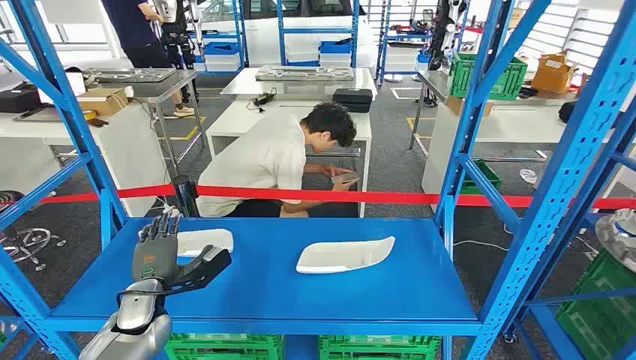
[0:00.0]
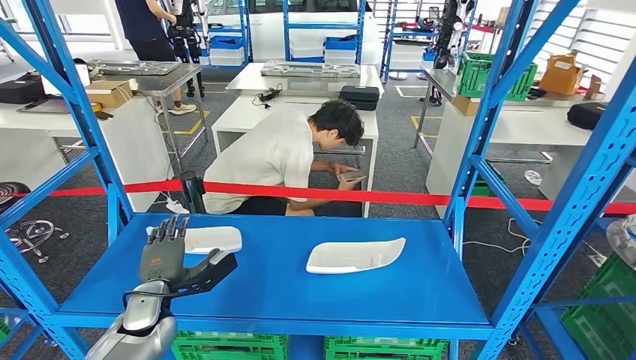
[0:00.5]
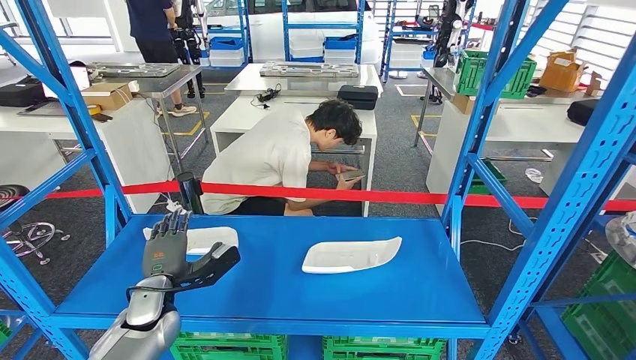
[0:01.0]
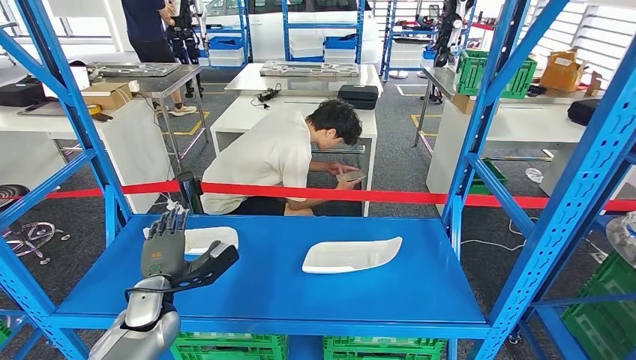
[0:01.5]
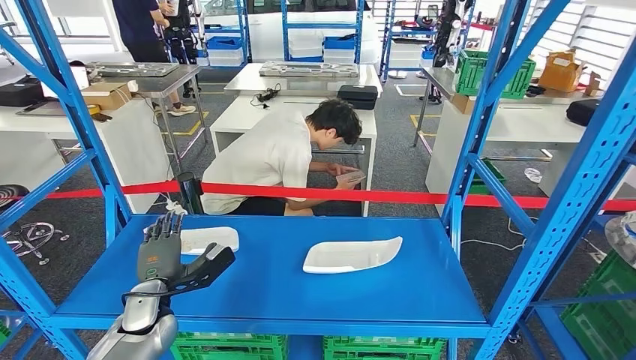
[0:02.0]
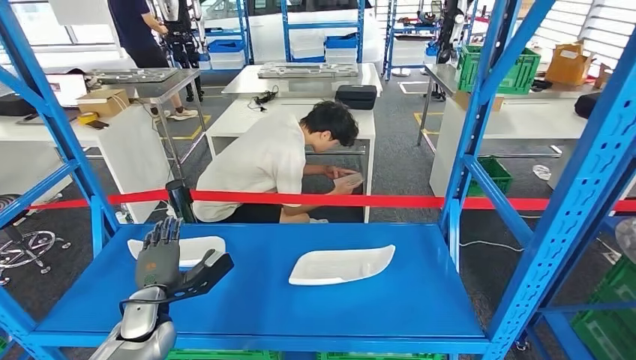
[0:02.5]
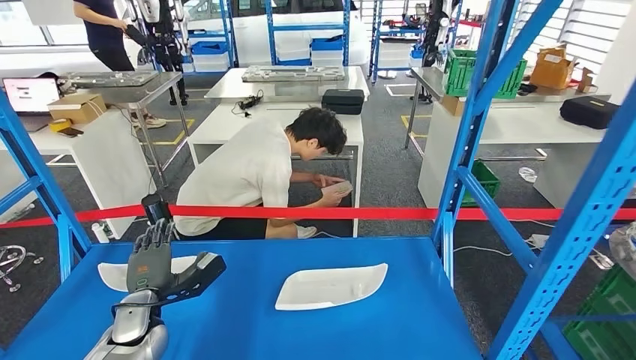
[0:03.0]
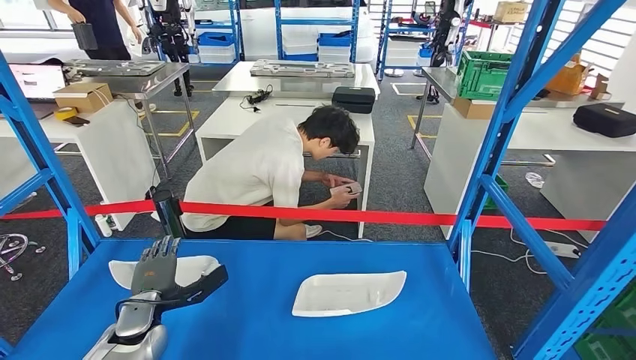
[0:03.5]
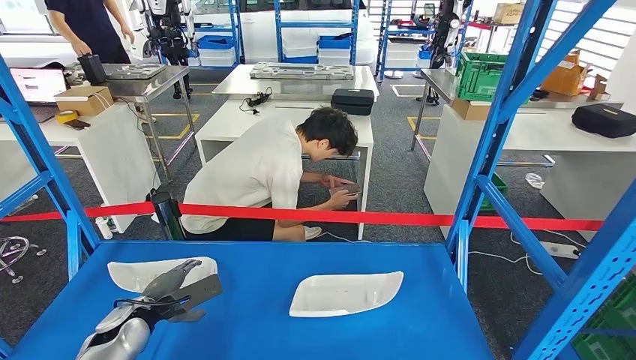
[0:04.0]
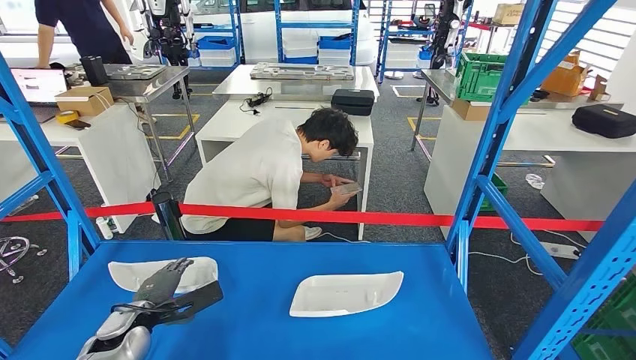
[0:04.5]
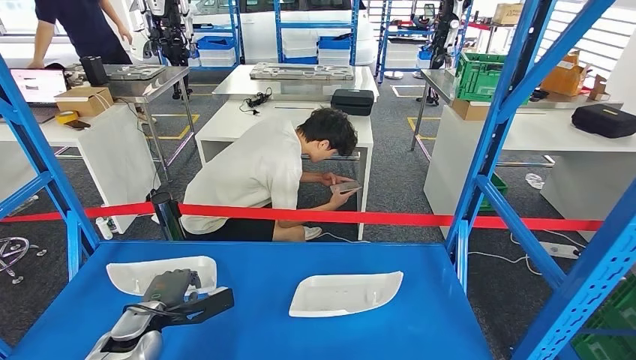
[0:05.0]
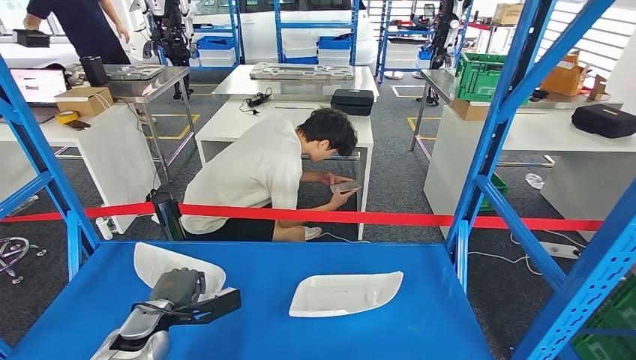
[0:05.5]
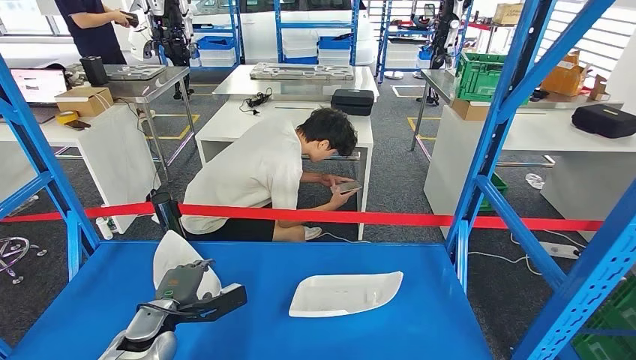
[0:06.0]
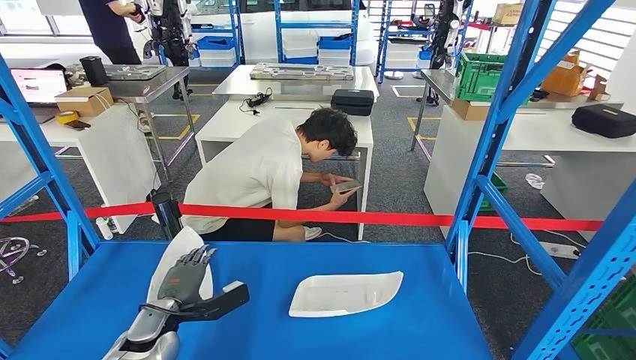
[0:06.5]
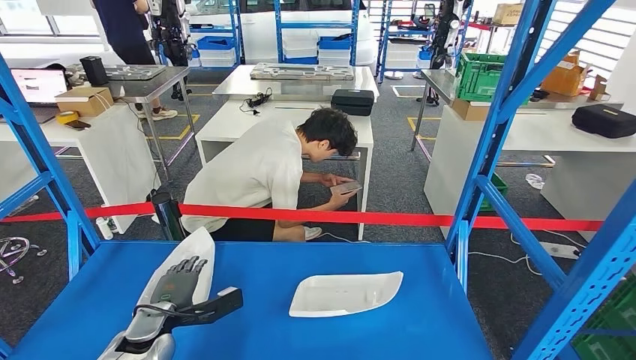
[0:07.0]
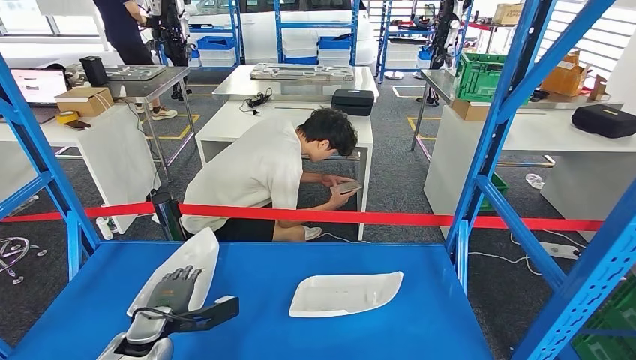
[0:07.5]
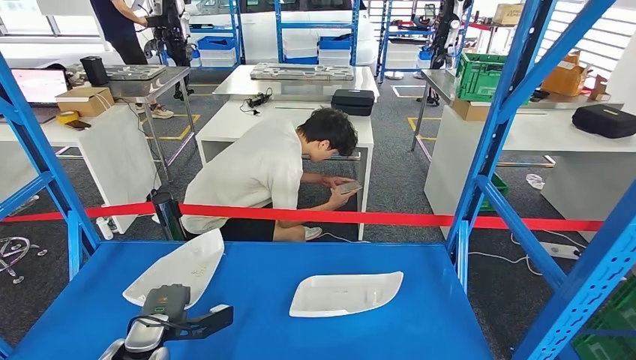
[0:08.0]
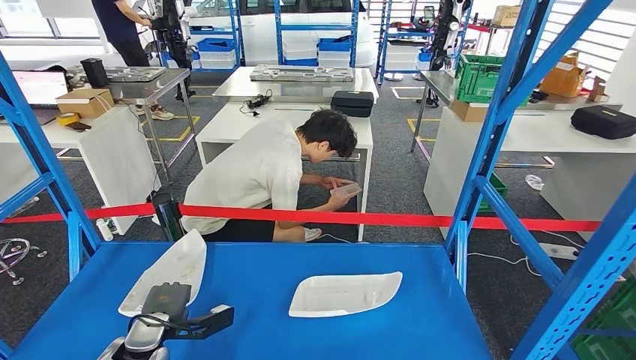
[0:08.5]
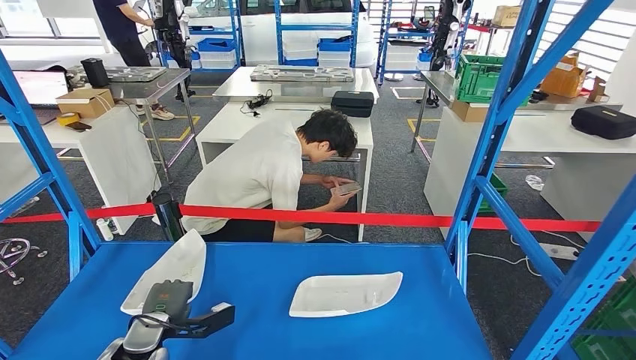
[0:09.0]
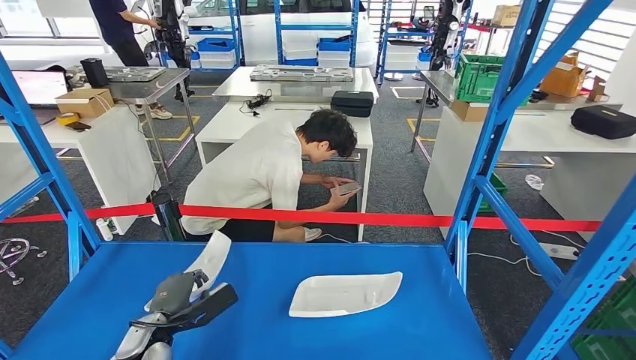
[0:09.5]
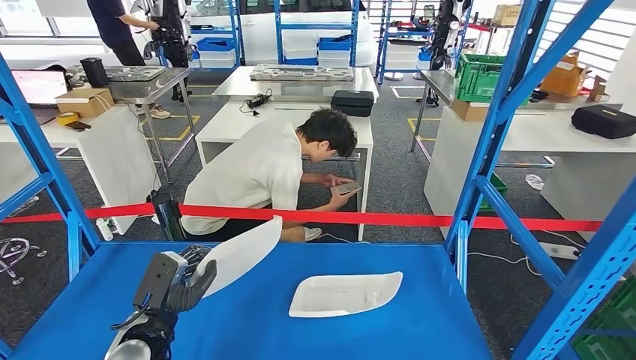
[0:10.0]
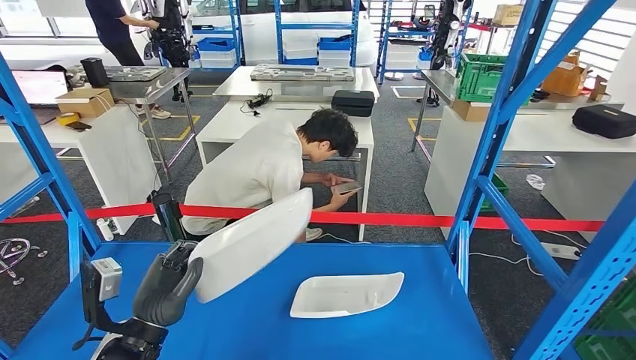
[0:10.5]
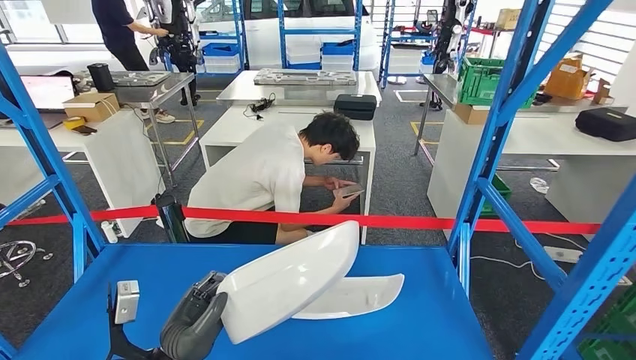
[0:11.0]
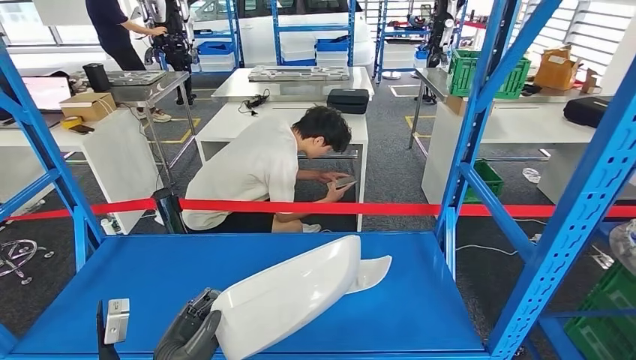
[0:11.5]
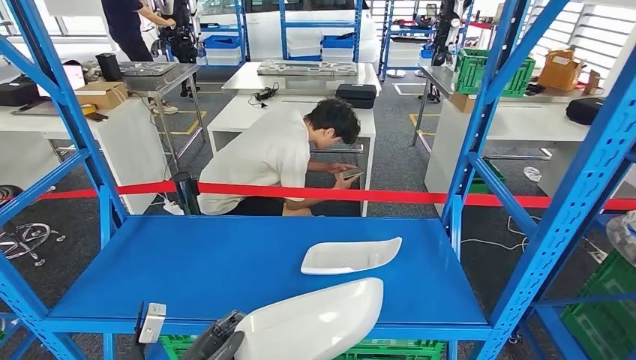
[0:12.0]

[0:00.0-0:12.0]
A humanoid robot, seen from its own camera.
Step, 0:00.0 to 0:09.5: Take small components from the rack.
0:08.0 to 0:10.0: The left hand goes roughly 5 cm to the right.

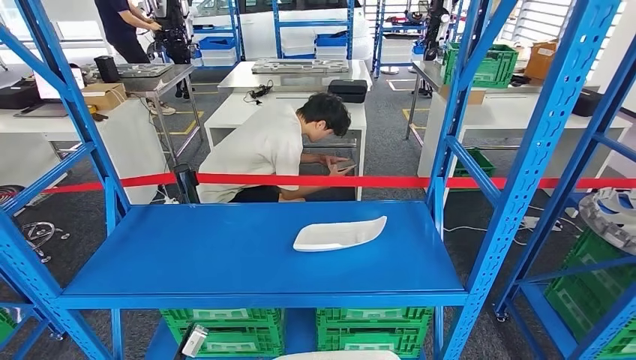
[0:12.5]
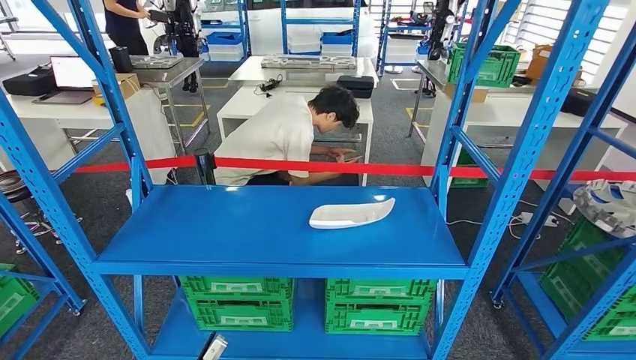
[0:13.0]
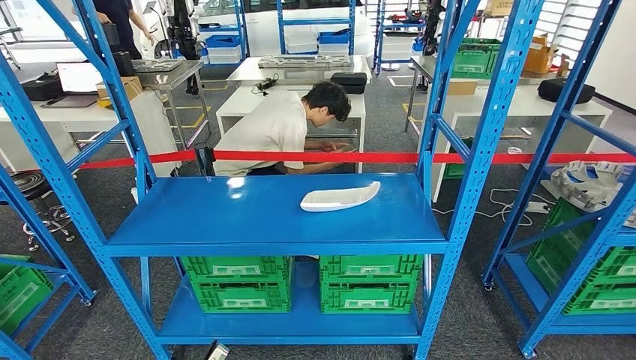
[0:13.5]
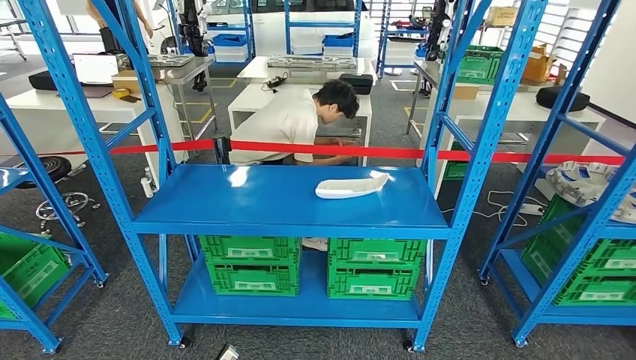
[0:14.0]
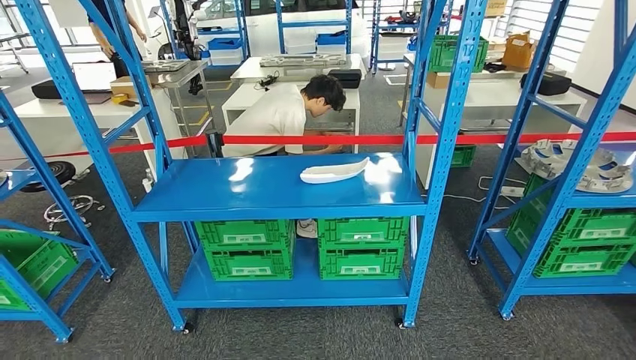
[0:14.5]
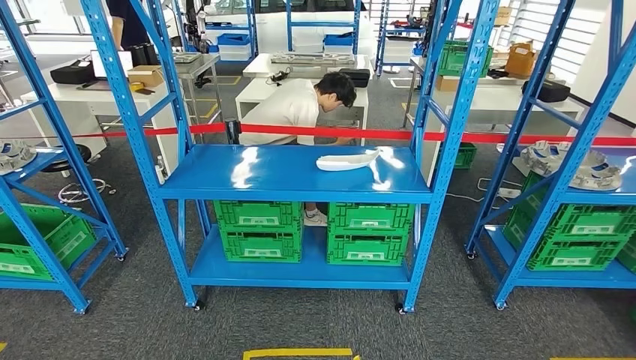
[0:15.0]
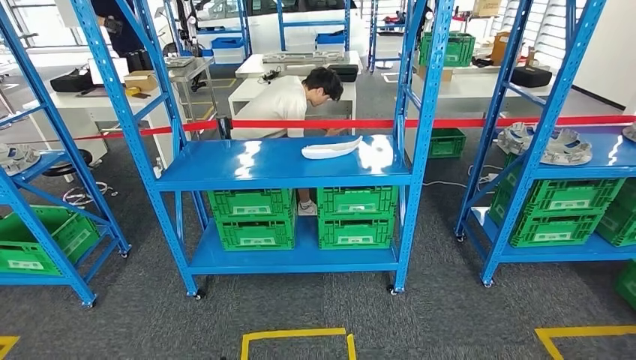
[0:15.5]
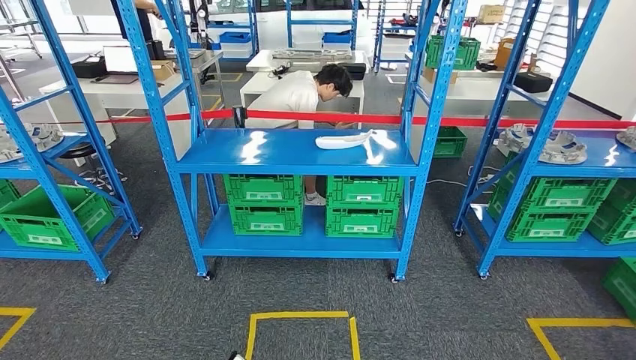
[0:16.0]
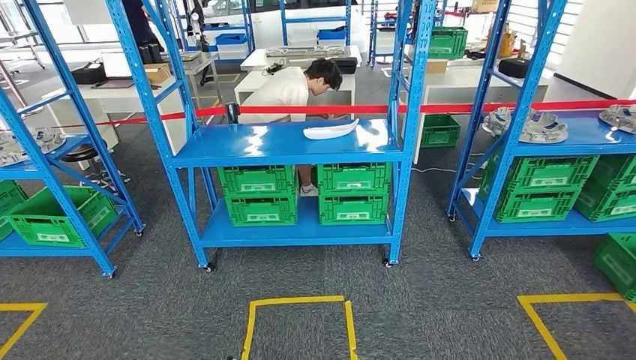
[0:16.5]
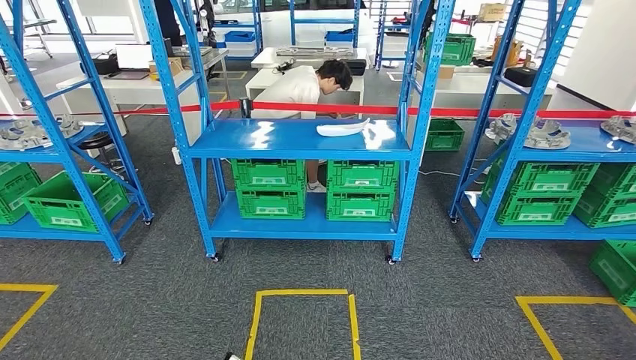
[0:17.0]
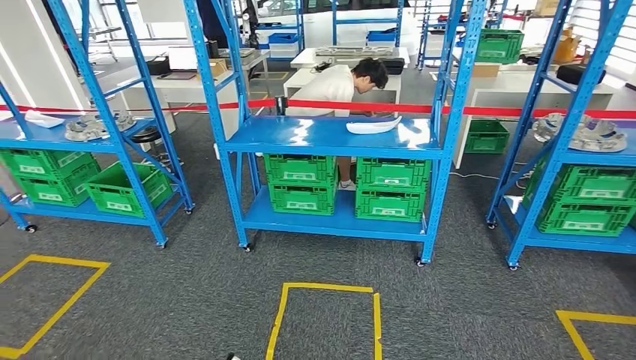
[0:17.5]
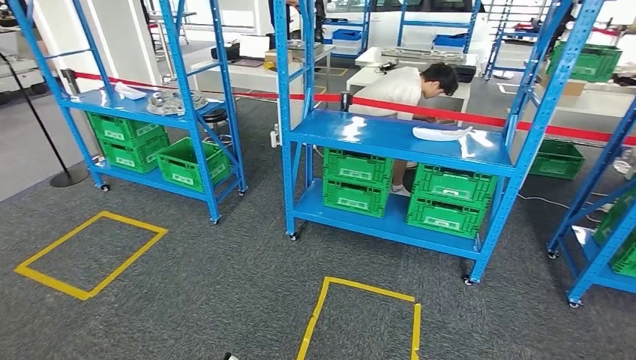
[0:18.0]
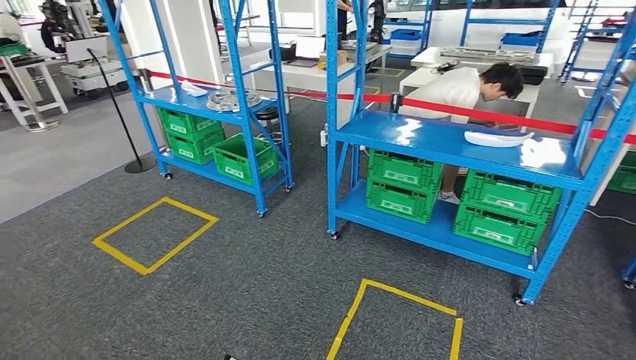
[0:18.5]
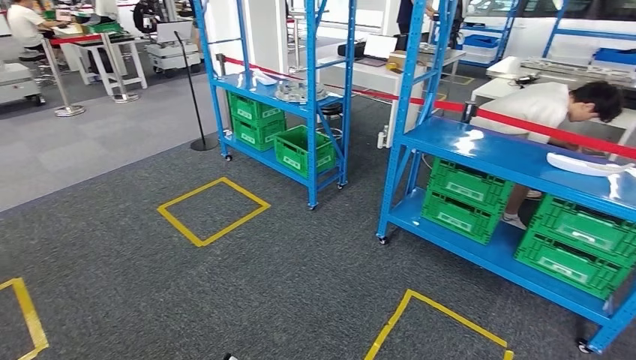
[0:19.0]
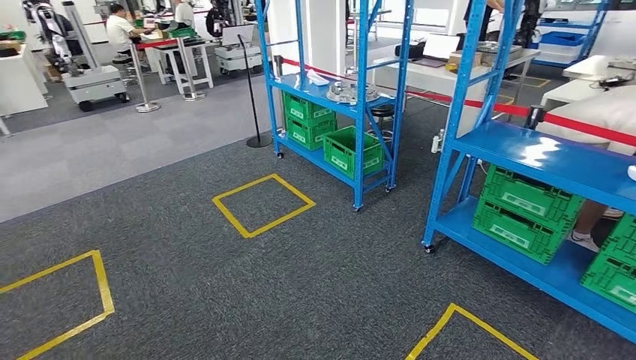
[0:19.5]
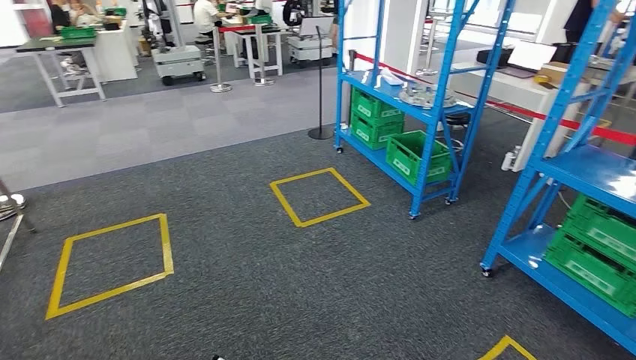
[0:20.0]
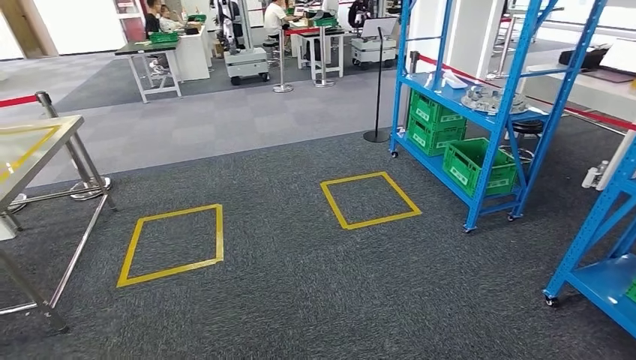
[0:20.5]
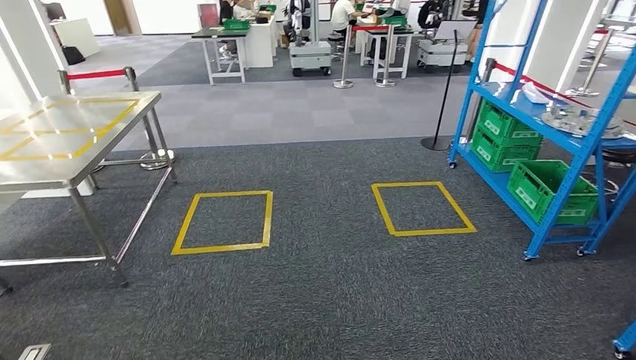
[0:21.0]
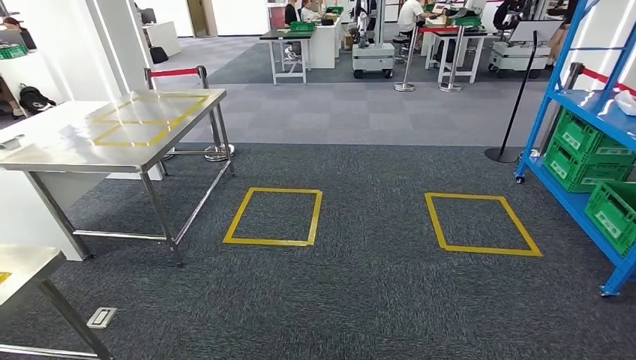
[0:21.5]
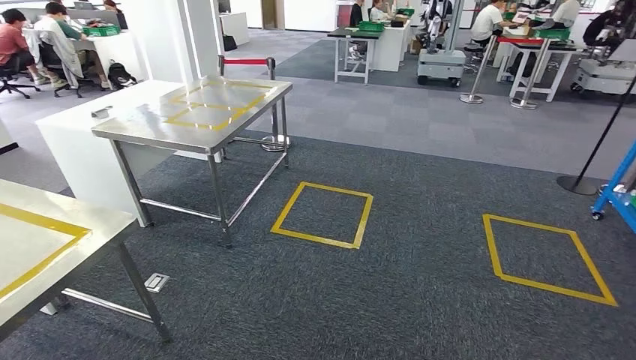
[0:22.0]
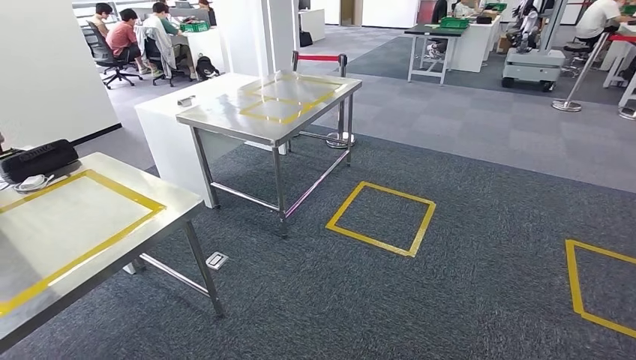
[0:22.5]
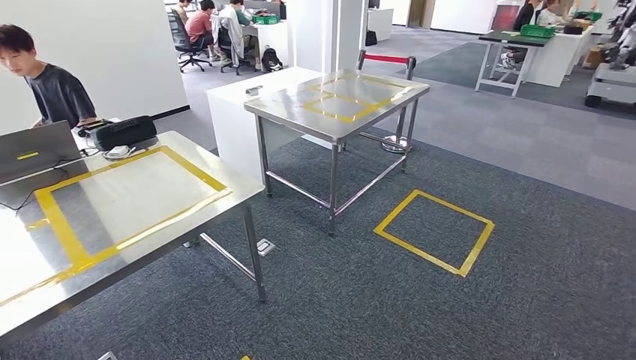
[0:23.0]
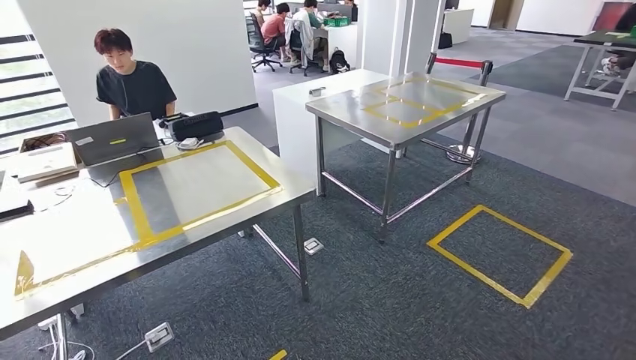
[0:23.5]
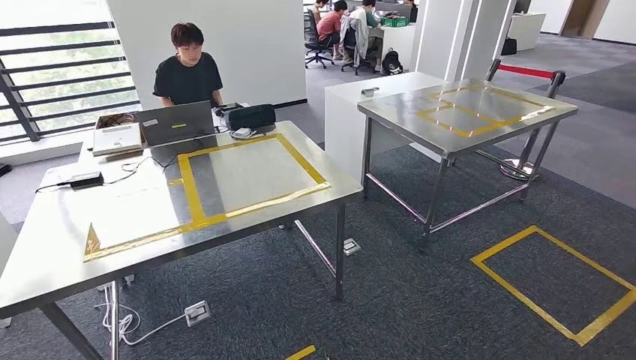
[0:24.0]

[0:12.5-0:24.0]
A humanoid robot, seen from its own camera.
Step, 0:12.5 to 0:18.5: Move the small parts to the workbench.
